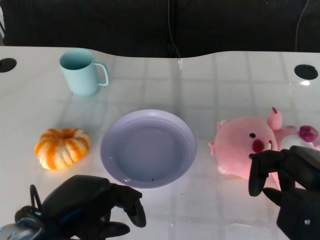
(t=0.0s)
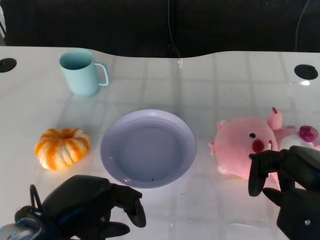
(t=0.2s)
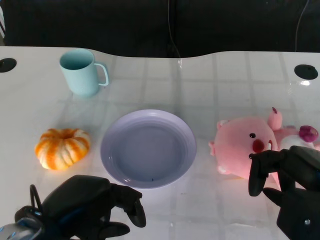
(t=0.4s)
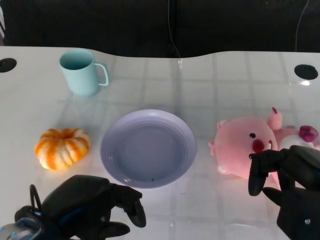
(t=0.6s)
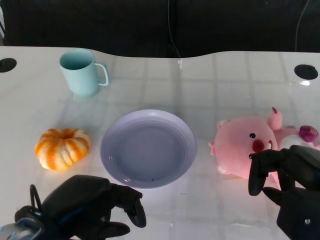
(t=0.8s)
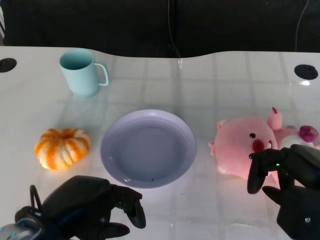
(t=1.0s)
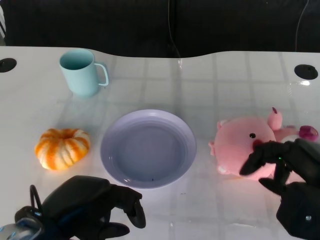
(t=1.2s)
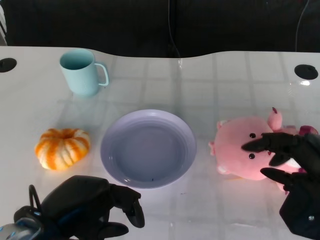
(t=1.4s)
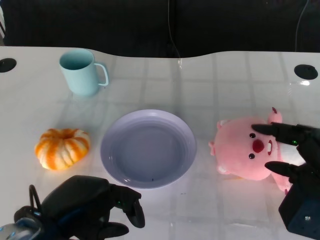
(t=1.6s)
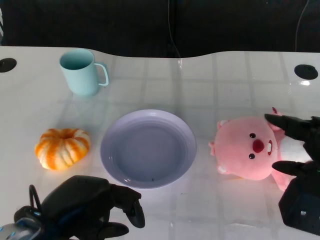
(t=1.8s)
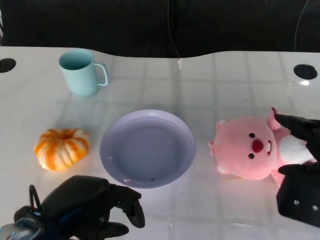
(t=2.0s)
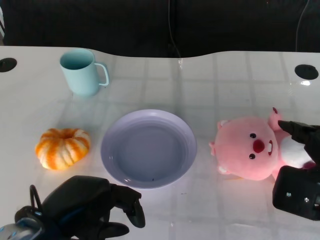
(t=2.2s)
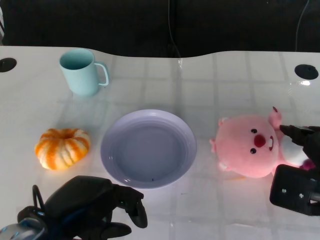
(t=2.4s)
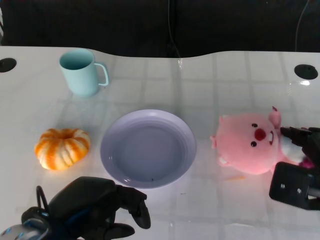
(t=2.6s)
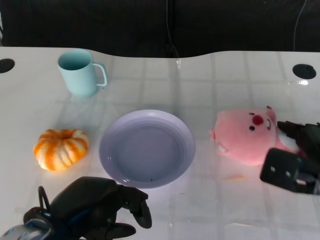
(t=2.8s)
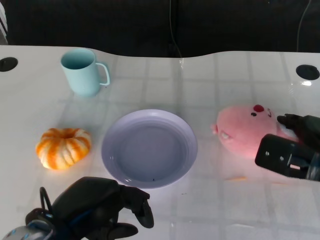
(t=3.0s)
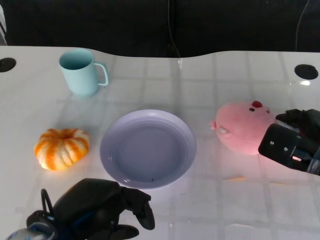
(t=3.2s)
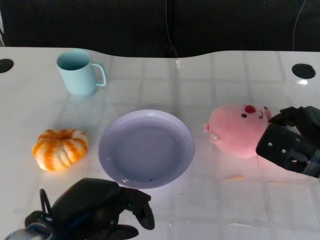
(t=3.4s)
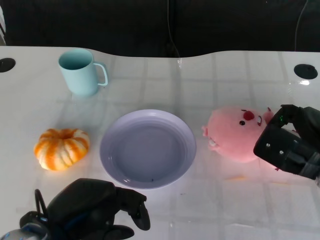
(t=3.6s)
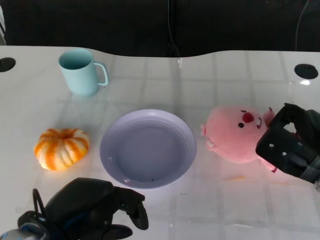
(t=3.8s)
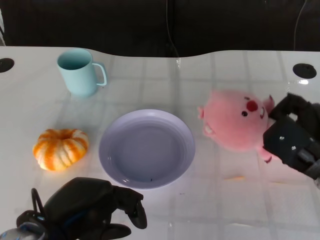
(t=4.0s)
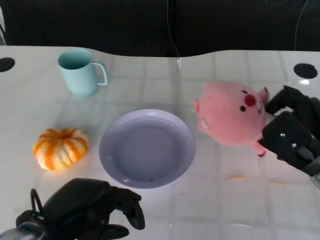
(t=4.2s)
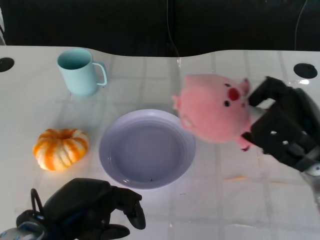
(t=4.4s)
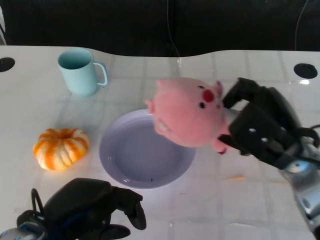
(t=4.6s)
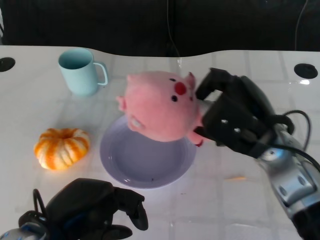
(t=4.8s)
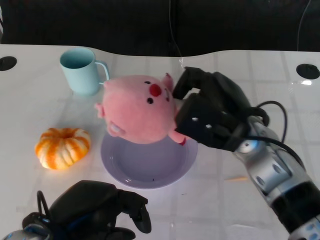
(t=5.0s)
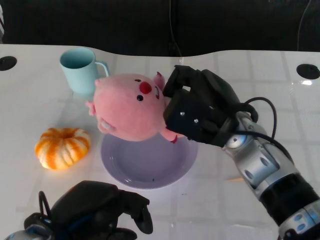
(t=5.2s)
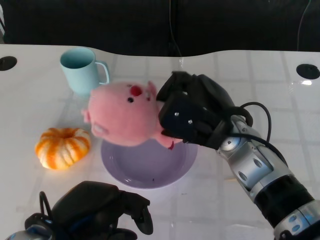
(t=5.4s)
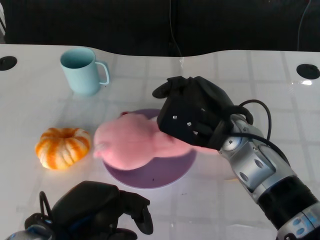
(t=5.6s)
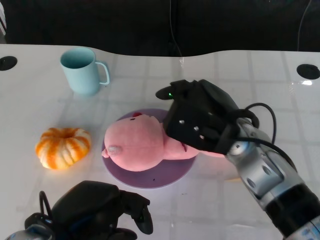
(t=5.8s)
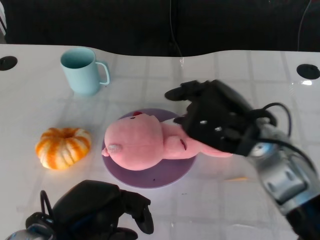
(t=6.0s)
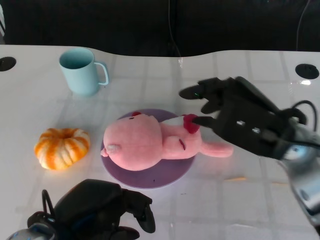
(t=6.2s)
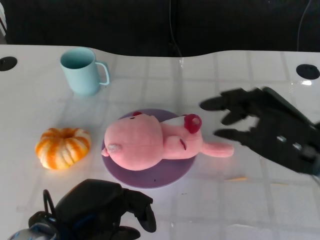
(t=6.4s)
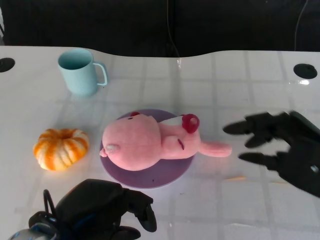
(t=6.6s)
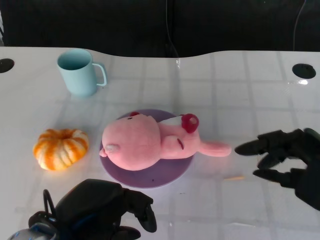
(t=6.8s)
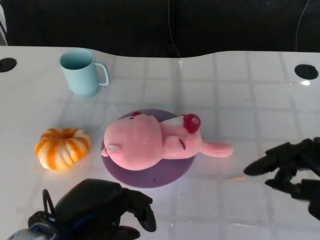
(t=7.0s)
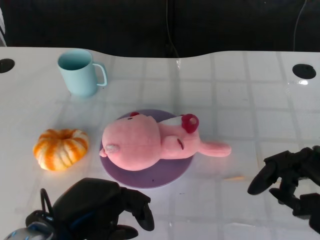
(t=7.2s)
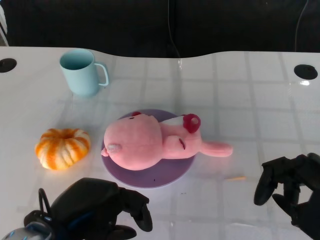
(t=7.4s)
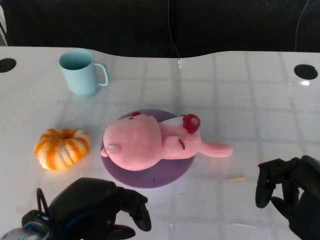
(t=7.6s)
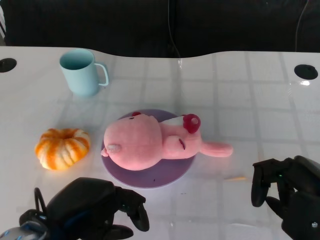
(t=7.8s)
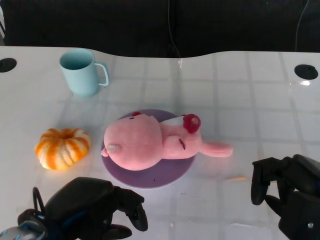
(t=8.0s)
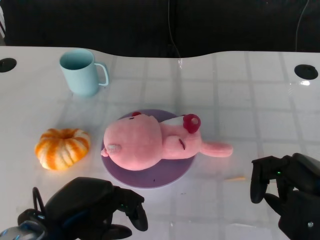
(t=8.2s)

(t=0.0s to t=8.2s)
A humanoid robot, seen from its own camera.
Task of the whole recording: Pick up the doll on the other side of the plate and place it into the plate.
Step, t=1.0s - t=4.4s: Grasp the pink doll with the right gripper.
Step, t=4.8s - t=6.4s: Place the pink doll into the plate with the right gripper.
t=1.6s - t=3.2s: The right hand heads forward, covering approximately 10 cm.
t=3.2s - t=5.0s: The right hand is displaced to the left and upward by roughly 15 cm.
t=5.0s - t=6.6s: The right hand heads to the right and backward, covering some 15 cm.
t=6.6s - t=8.2s: There are only small adjustments of the hands.

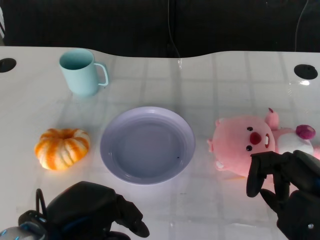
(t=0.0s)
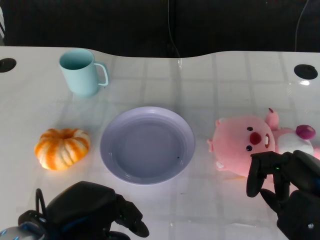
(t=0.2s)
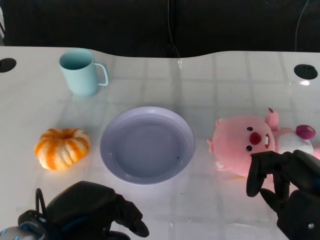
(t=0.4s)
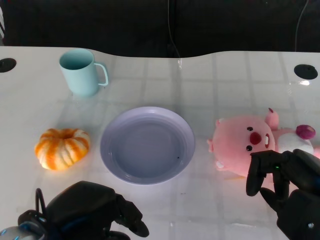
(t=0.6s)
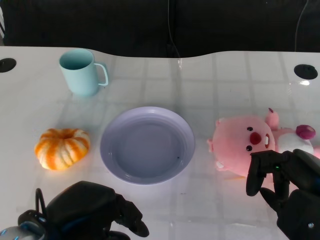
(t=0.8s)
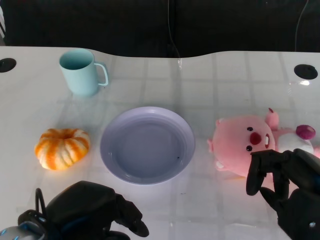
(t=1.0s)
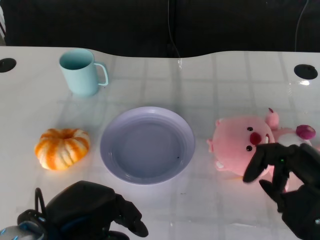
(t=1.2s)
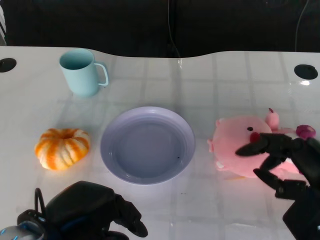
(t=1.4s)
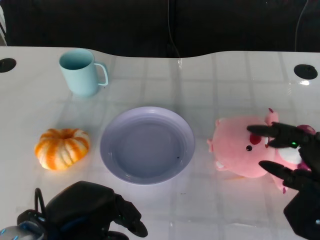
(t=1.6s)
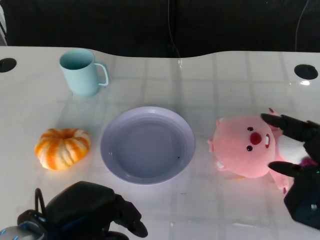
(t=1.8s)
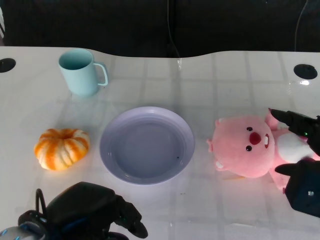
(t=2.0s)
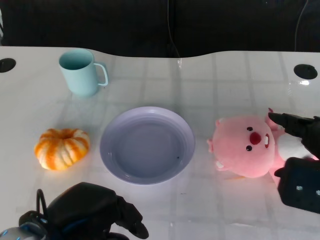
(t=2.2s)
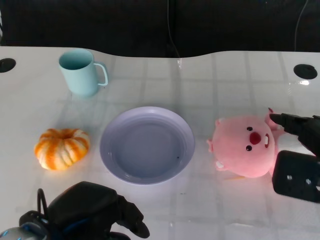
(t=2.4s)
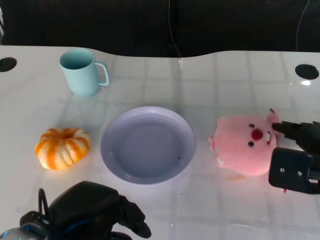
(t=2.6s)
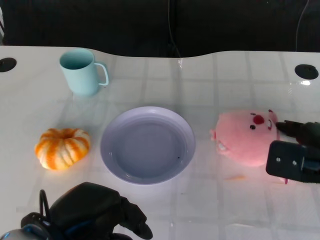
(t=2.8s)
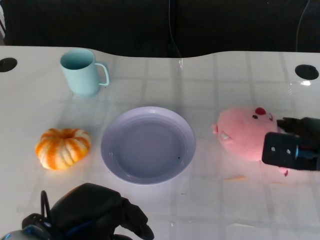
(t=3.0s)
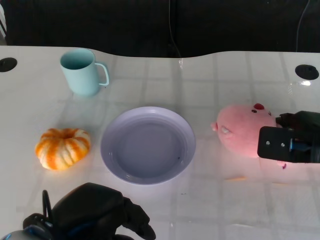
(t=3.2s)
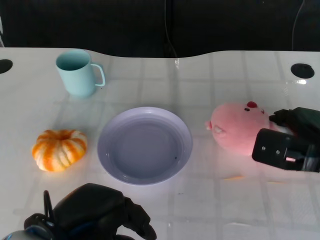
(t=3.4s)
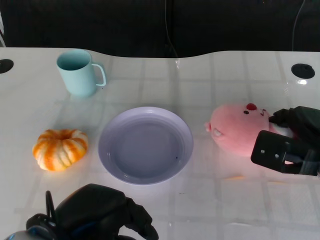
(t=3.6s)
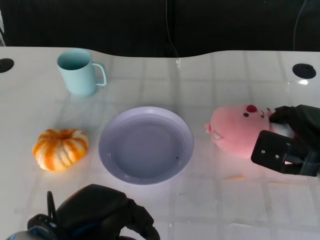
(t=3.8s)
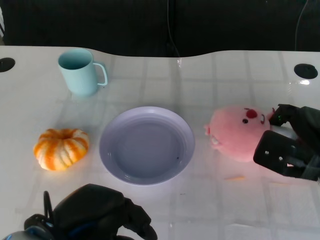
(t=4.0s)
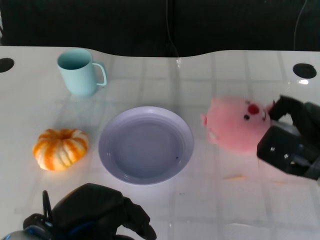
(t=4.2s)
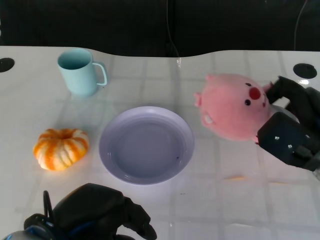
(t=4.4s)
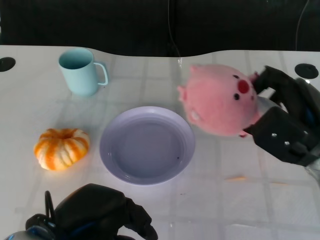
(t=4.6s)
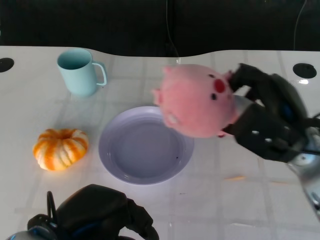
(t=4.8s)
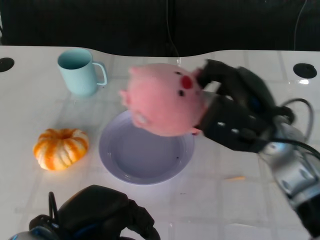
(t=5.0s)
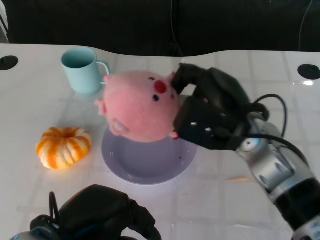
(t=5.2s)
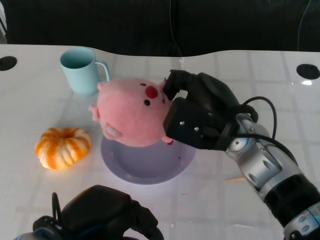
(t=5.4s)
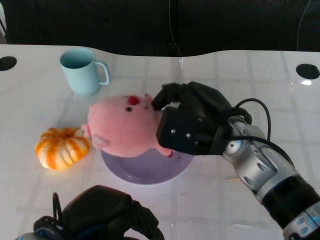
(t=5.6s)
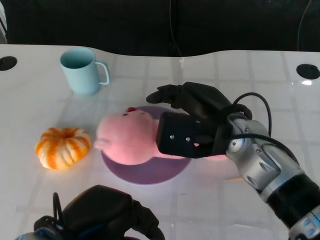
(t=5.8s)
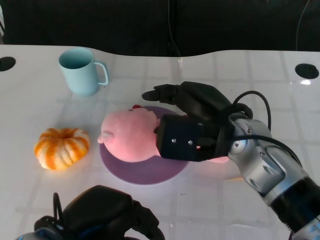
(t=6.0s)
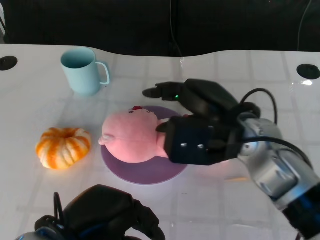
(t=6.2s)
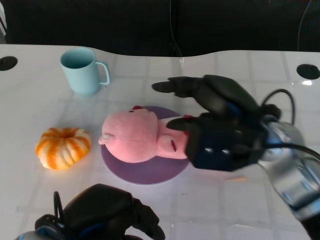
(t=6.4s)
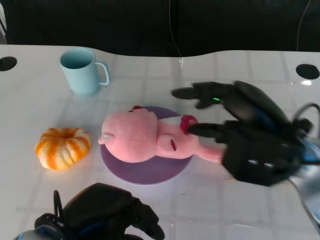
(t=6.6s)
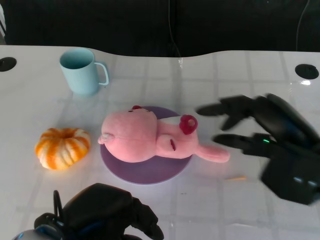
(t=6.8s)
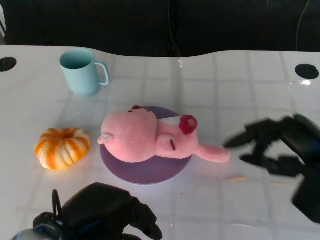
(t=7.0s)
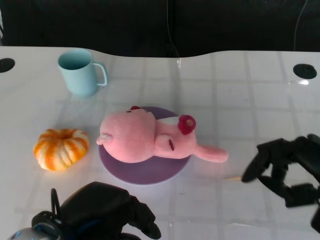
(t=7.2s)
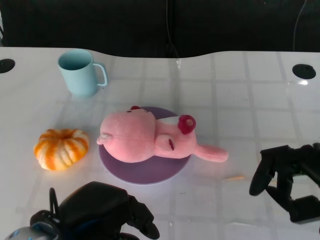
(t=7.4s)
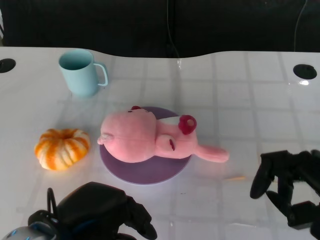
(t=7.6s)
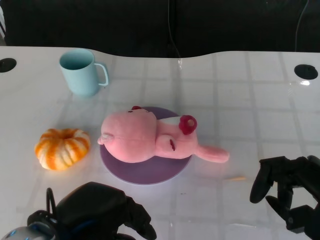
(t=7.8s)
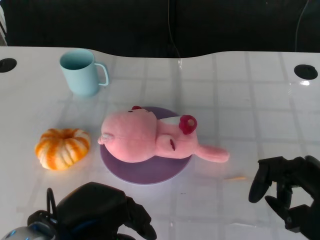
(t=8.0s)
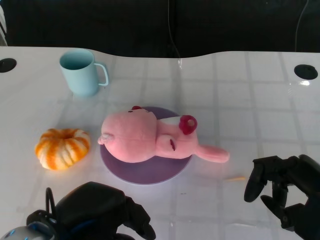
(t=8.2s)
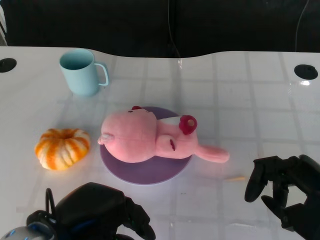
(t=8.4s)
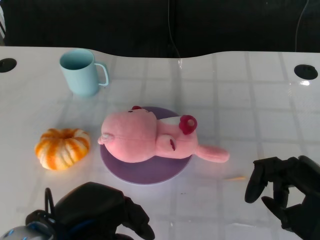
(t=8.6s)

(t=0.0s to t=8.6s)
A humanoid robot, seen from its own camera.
Task of the whole recording: Pick up the doll on the other side of the plate and place it into the plate.
Step, t=1.0s - t=4.4s: Grasp the pink doll with the right gripper.
Step, t=4.8s - t=6.4s: Place the pink doll into the plate with the right gripper.
t=1.4s - t=2.8s: The right hand shifts approximately 10 cm forward.
t=4.4s - t=5.8s: The right hand moves to the left, some 15 cm.
t=5.8s - t=7.2s: The right hand travels to the right and backward by approximately 20 cm.
t=7.2s - t=8.6s: The hands make only small movements.
